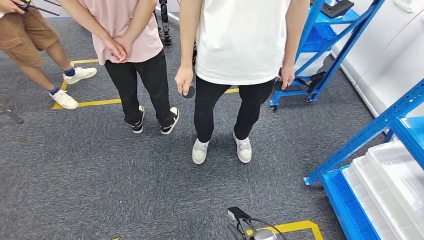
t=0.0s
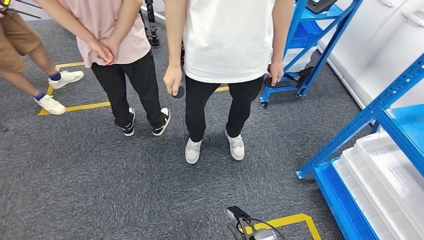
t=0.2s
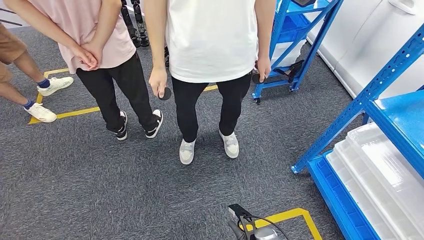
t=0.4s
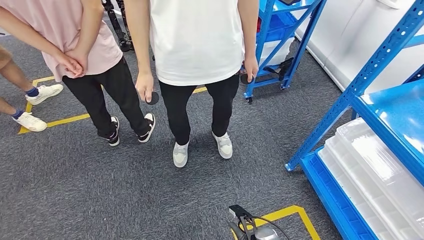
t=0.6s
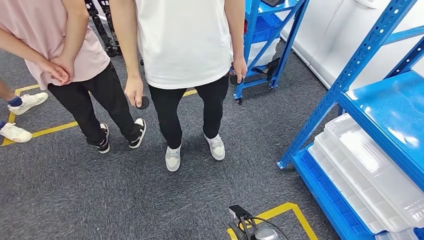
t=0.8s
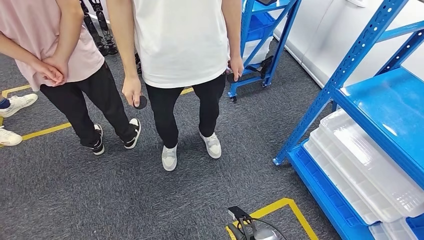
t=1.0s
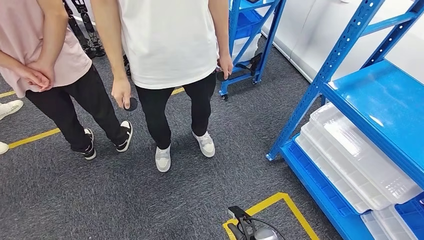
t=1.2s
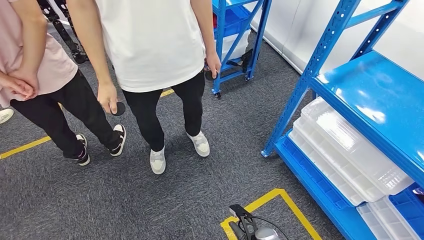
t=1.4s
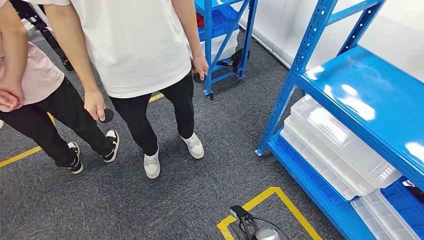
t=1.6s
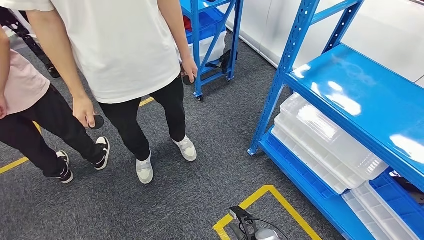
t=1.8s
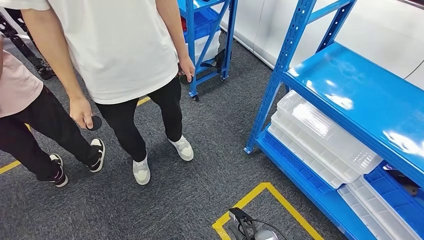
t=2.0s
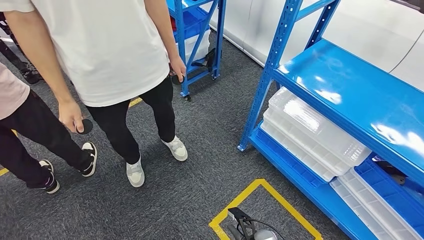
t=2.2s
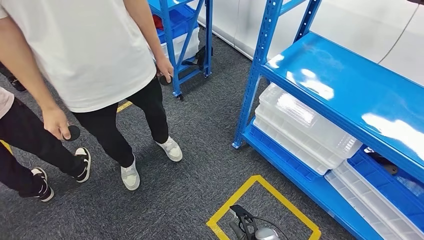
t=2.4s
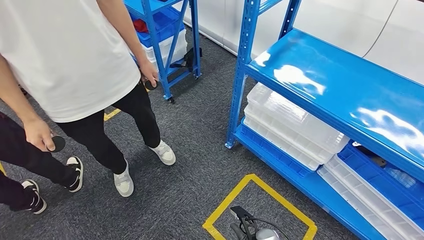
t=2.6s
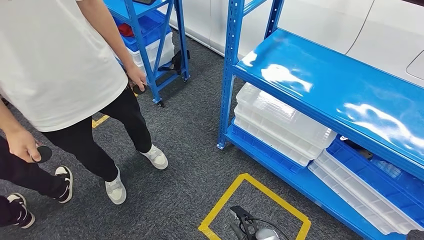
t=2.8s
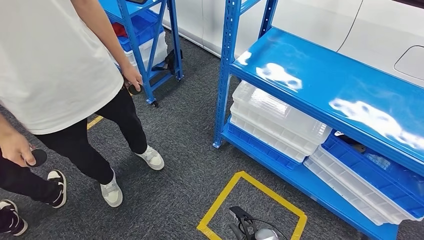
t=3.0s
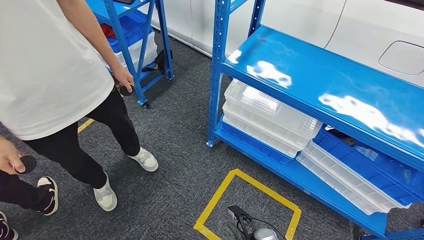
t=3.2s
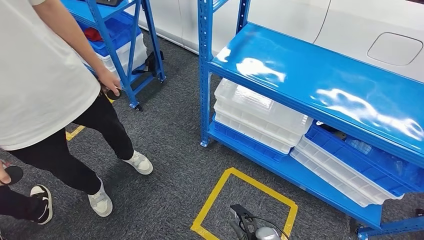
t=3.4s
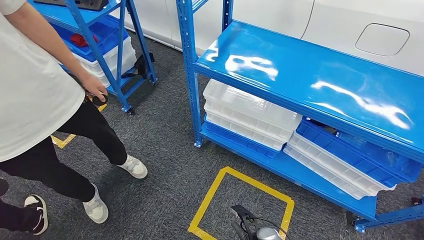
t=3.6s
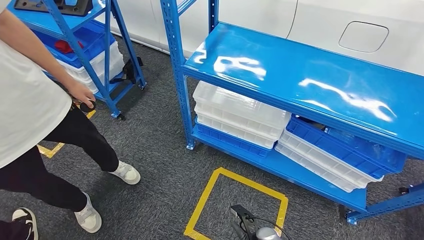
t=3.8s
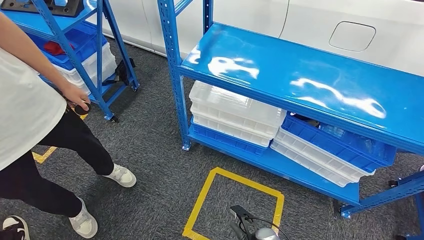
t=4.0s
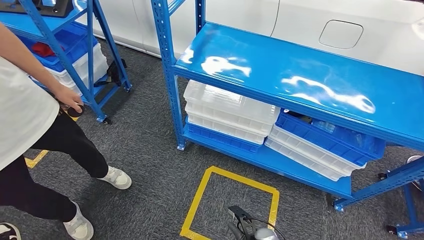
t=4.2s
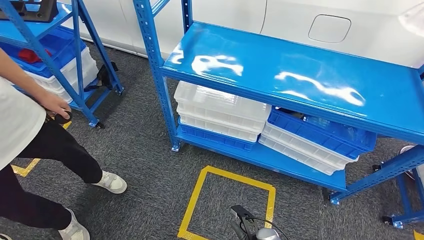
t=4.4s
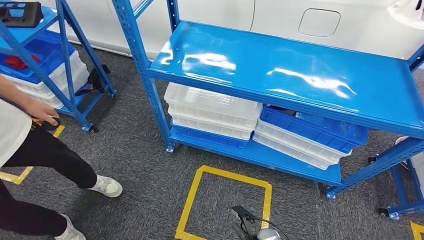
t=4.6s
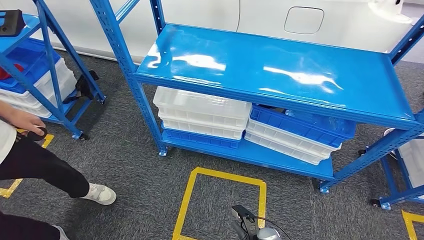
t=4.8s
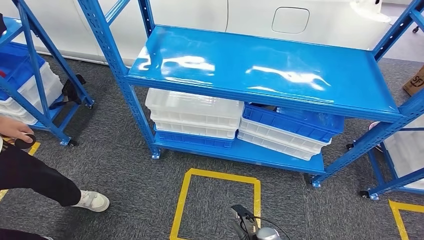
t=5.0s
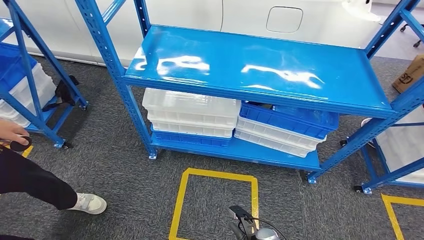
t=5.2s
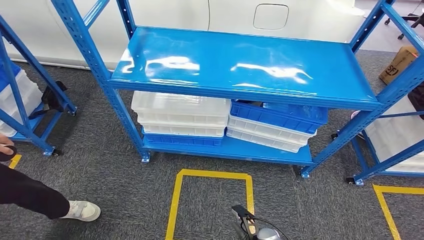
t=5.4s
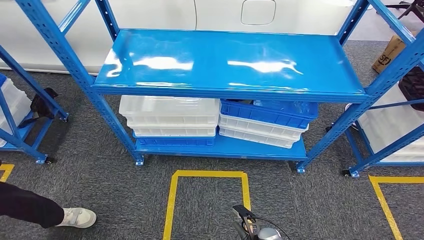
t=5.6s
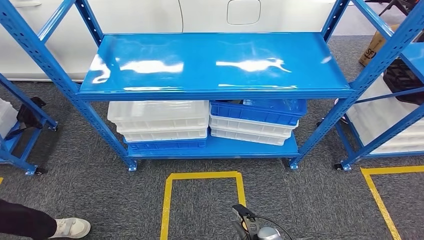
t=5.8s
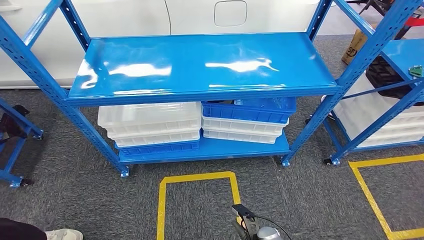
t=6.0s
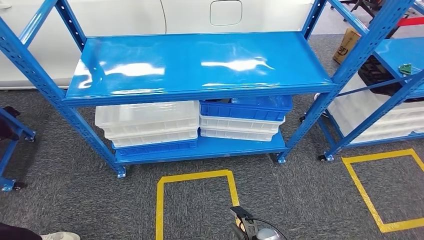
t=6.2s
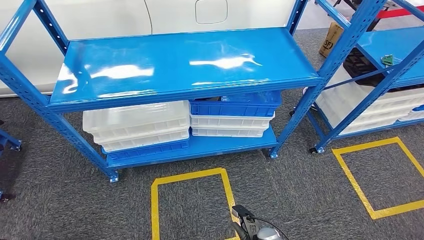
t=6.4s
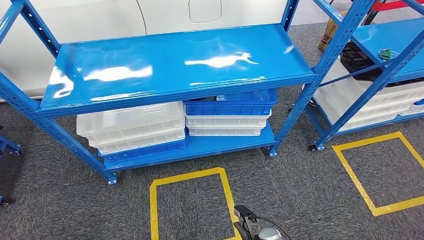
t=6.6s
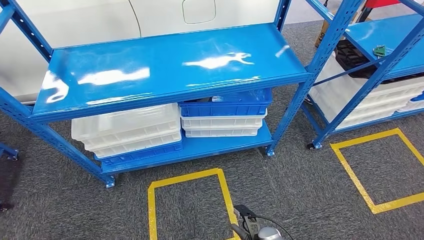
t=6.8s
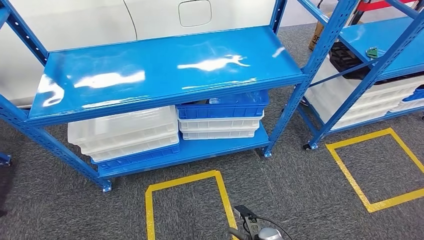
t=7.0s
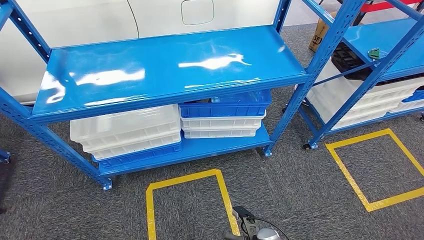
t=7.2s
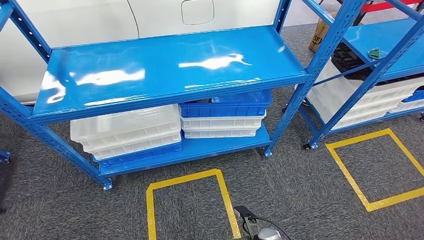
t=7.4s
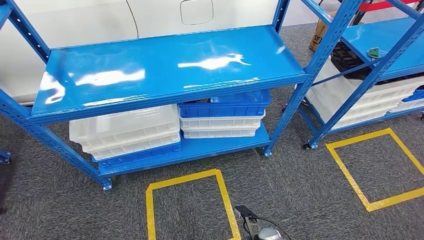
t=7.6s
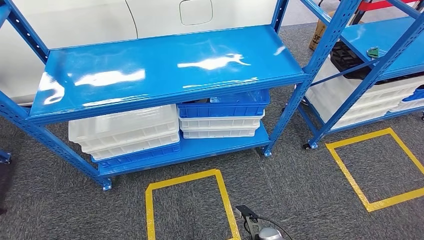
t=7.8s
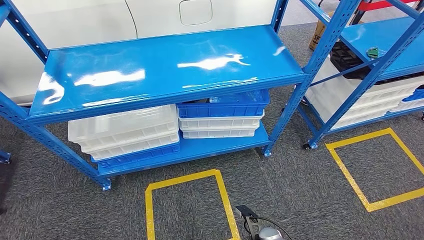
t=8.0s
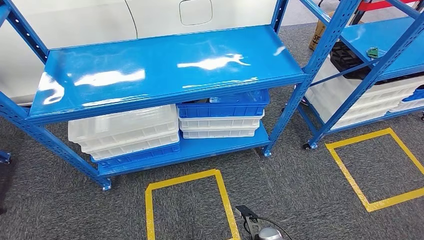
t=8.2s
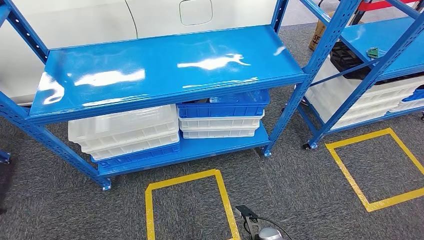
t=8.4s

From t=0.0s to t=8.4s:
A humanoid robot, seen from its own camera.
Step, from t=0.0s to t=8.4s: Move to the initial position of the shelf.
From t=7.0s to t=8.4s: Both hands stay about where they are.

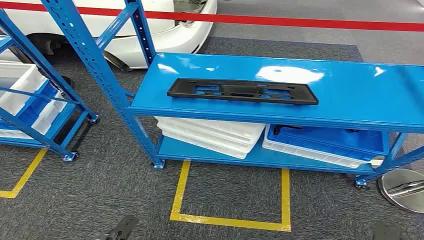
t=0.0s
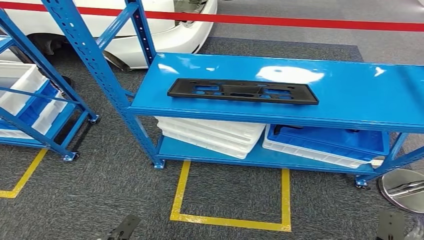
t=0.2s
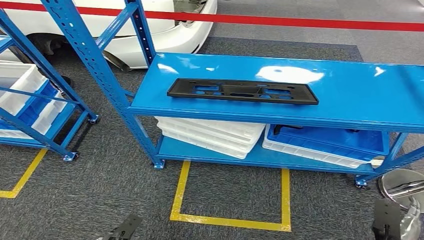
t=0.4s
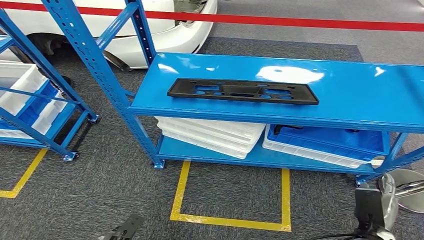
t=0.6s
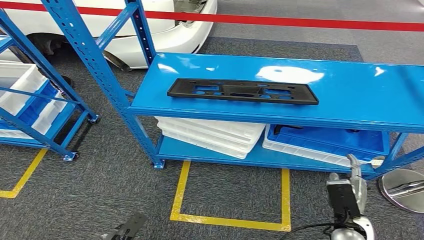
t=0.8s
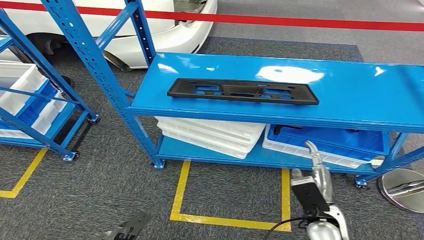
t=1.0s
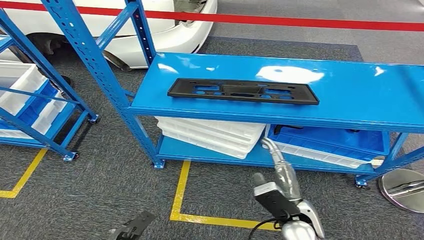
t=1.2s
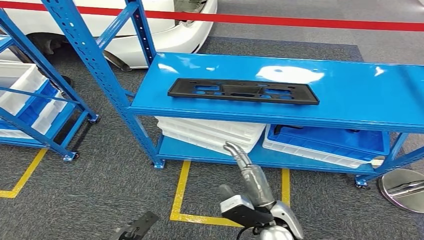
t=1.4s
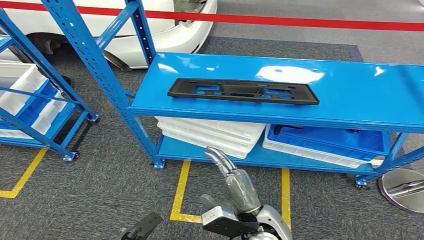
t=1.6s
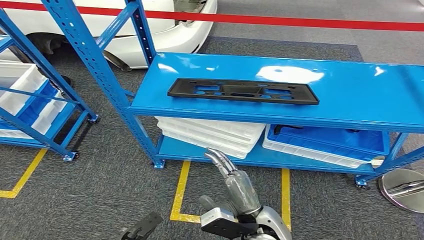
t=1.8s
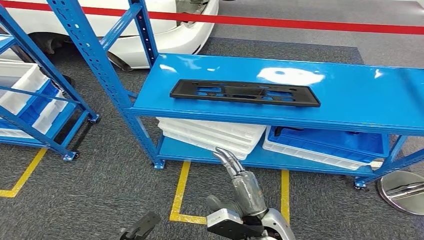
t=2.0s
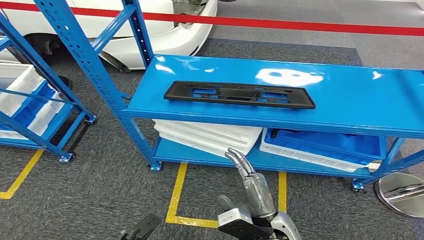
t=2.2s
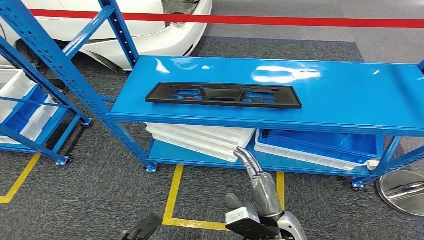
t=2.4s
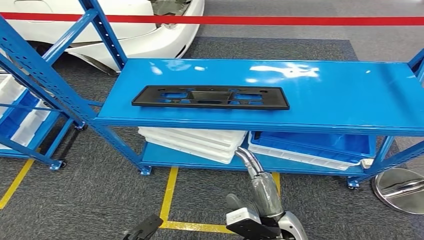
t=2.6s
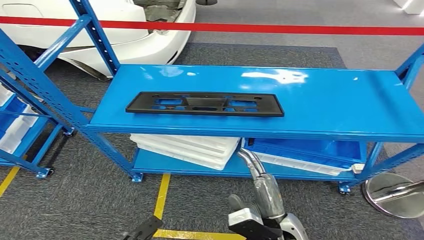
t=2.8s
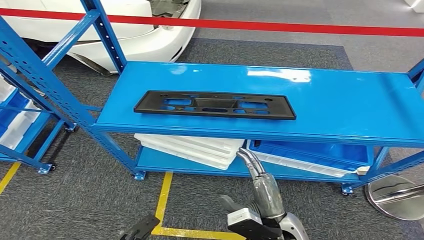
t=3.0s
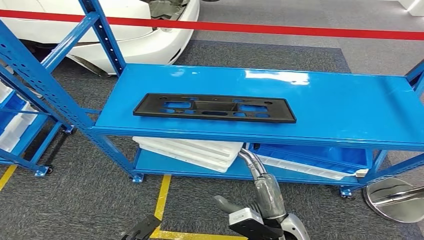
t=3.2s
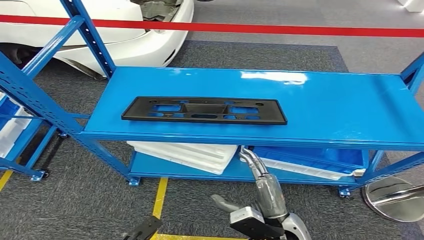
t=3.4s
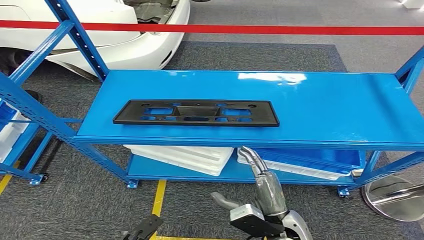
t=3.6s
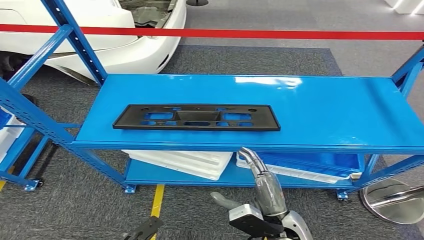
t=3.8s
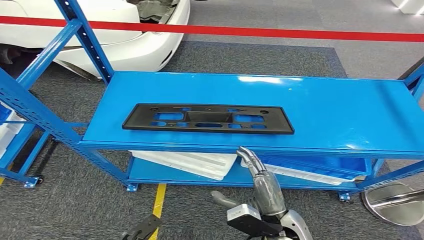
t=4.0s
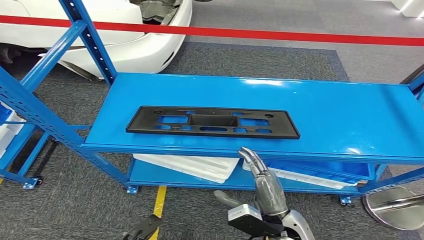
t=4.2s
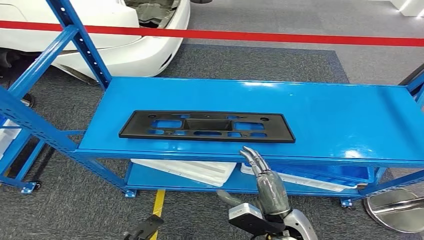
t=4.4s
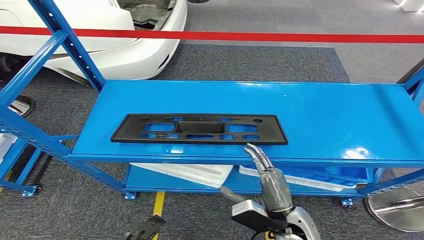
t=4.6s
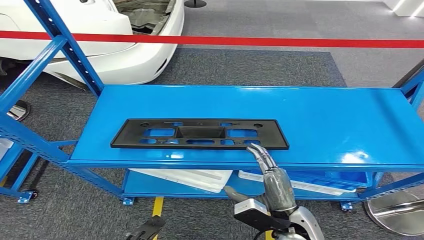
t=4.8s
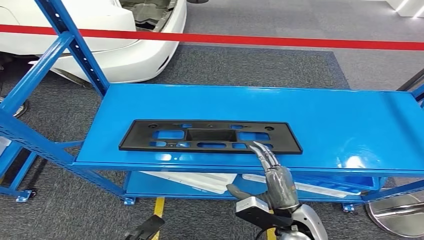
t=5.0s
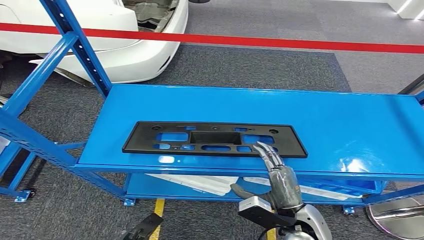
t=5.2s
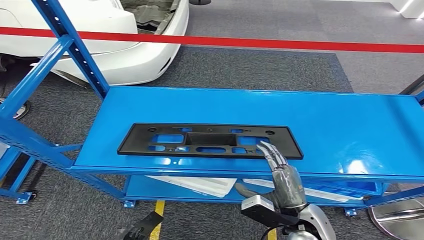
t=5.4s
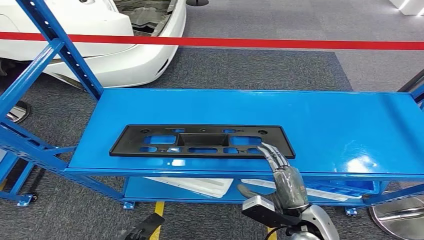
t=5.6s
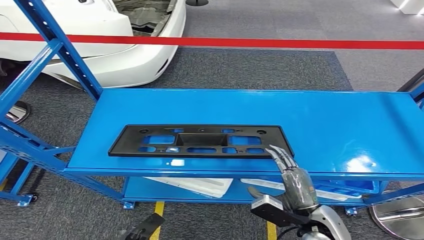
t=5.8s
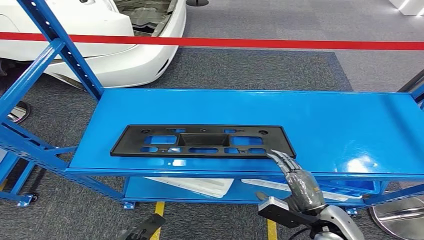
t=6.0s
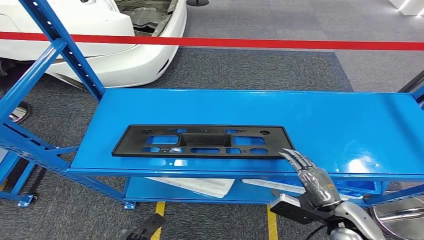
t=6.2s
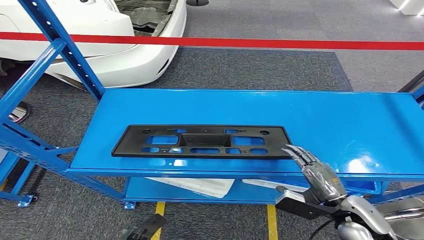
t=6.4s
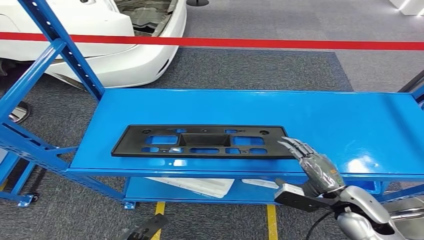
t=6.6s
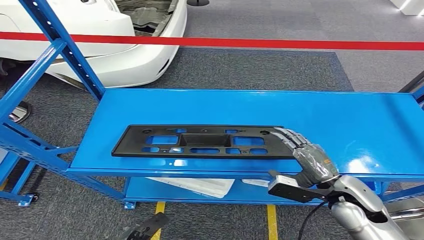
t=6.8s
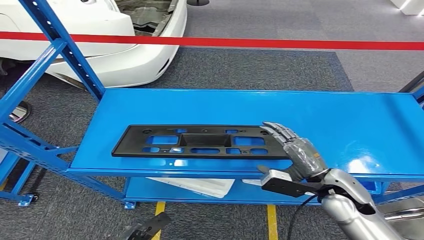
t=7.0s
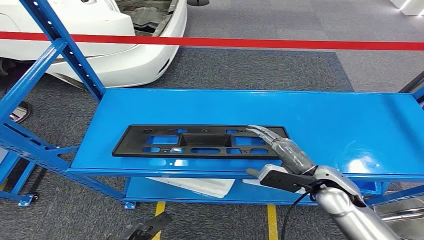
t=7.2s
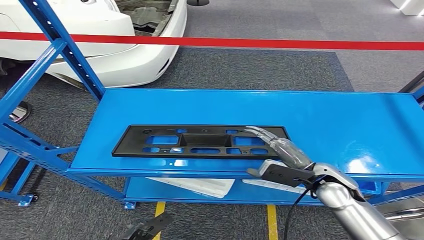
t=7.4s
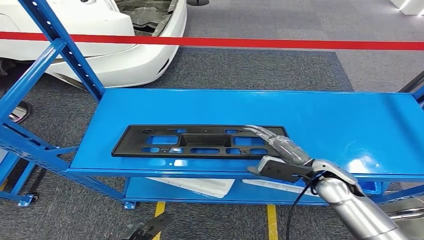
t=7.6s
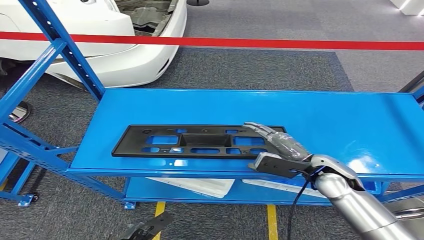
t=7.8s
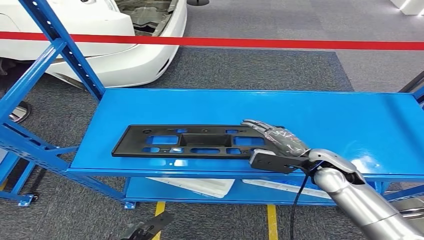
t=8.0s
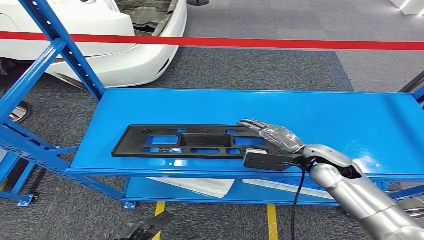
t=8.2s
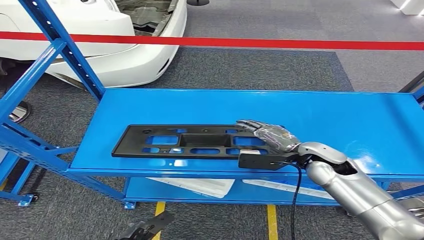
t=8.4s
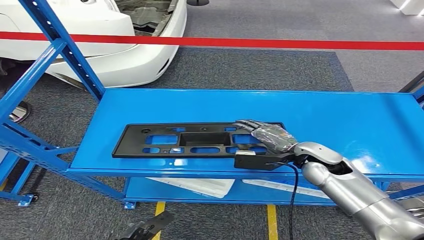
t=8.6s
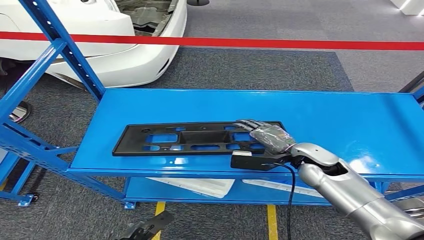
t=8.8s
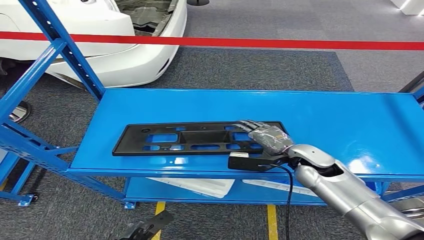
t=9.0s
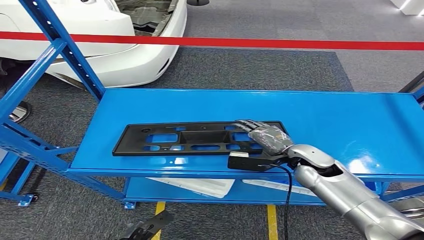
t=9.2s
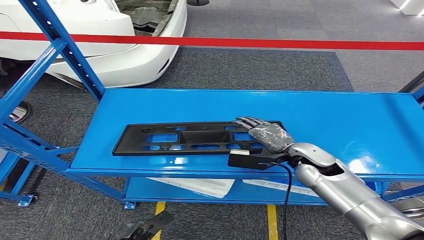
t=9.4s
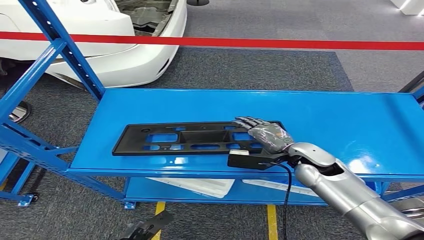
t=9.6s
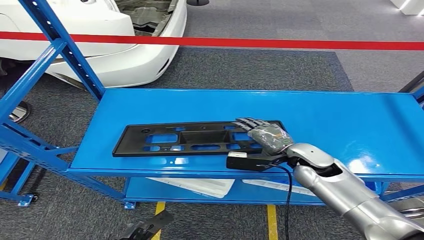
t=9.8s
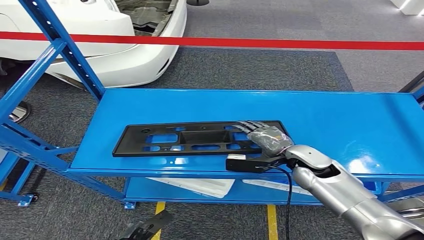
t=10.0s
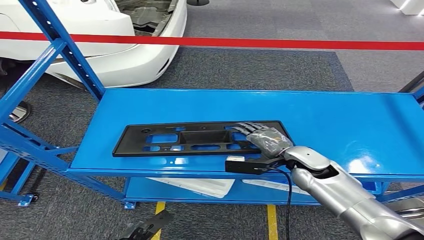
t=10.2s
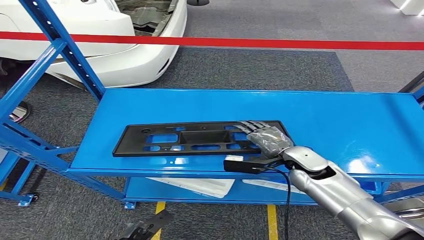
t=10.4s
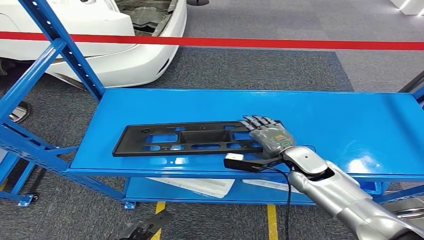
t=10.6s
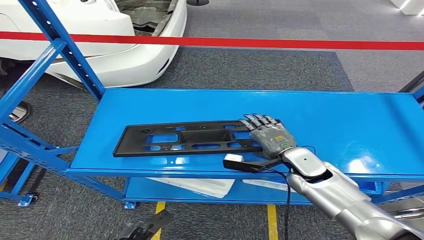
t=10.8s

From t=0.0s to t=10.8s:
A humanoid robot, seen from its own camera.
From t=6.2s to t=7.8s: The right hand is displaced forward and upward by approximately 15 cm.
